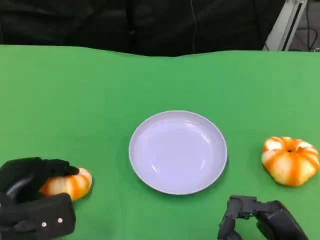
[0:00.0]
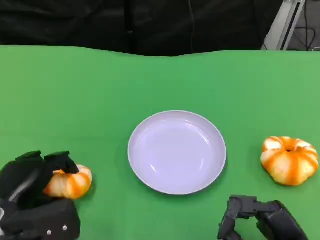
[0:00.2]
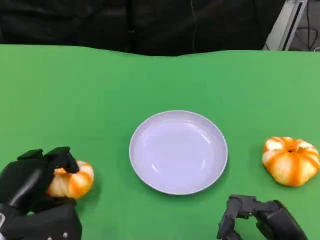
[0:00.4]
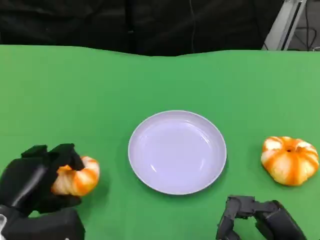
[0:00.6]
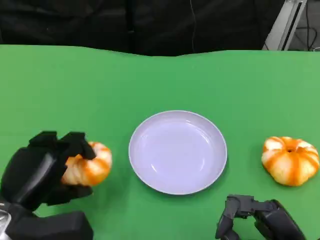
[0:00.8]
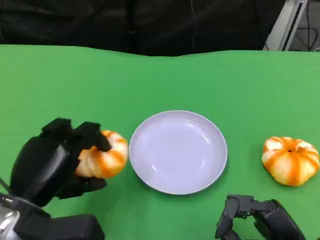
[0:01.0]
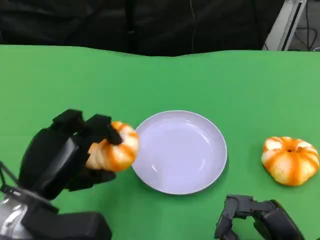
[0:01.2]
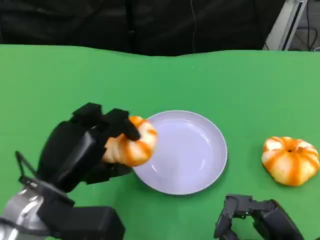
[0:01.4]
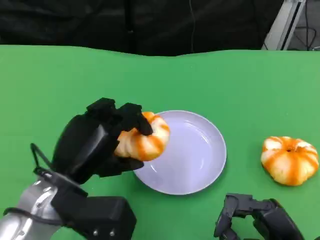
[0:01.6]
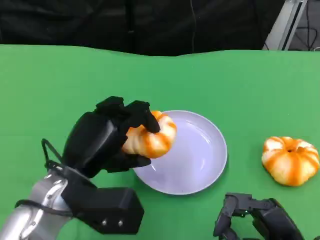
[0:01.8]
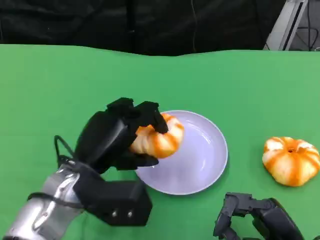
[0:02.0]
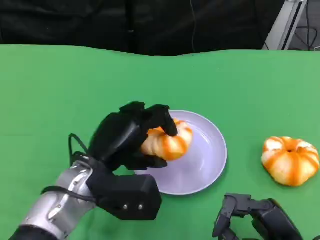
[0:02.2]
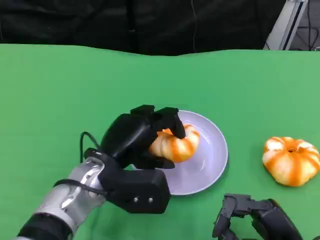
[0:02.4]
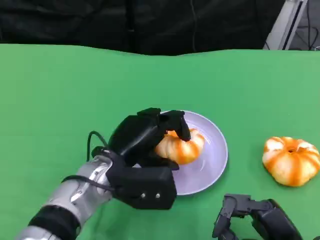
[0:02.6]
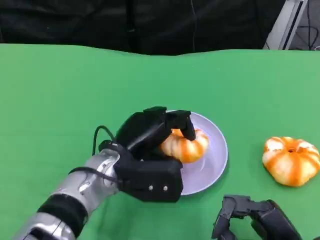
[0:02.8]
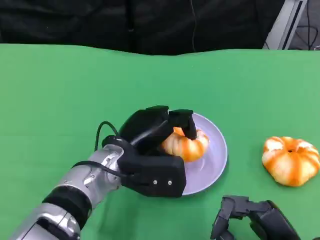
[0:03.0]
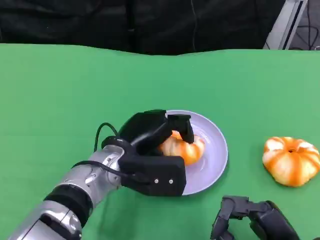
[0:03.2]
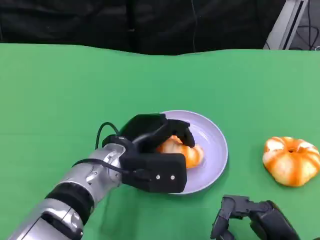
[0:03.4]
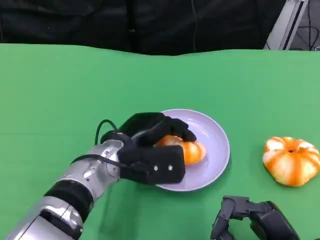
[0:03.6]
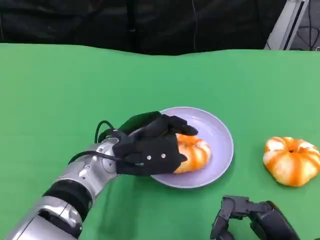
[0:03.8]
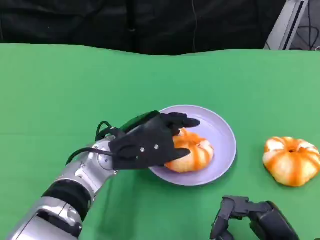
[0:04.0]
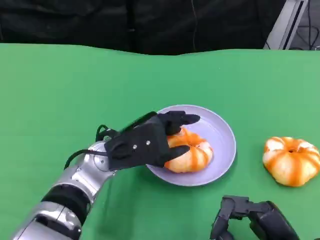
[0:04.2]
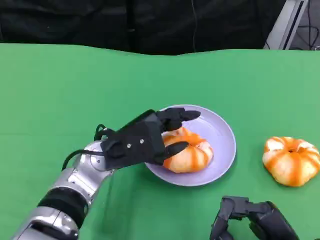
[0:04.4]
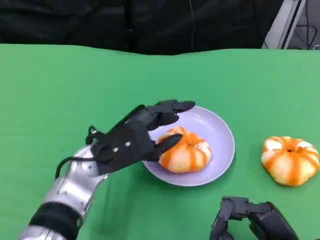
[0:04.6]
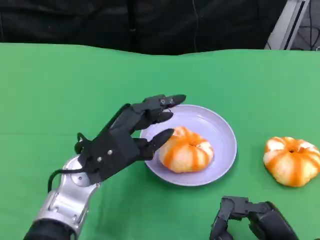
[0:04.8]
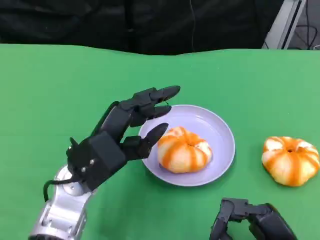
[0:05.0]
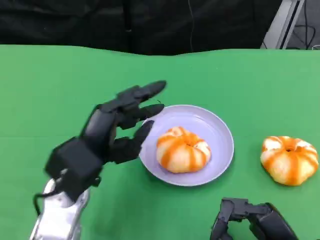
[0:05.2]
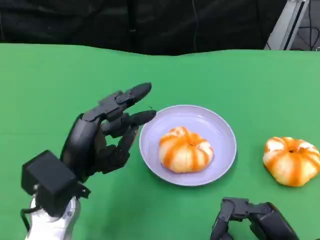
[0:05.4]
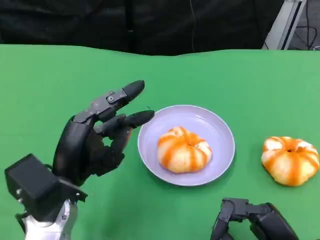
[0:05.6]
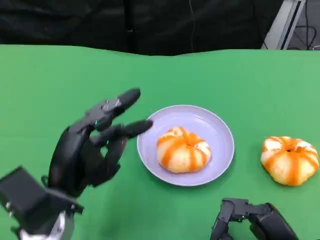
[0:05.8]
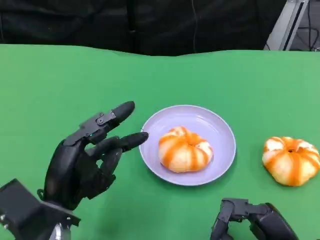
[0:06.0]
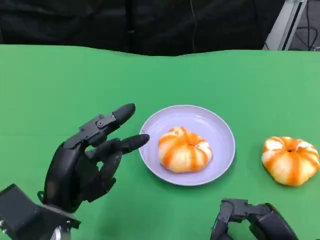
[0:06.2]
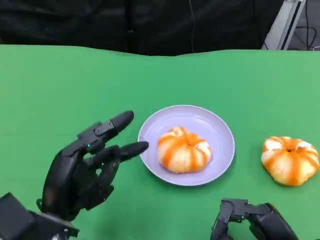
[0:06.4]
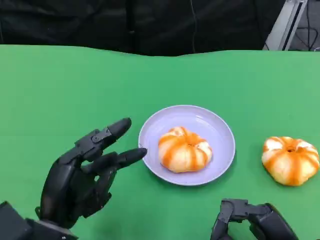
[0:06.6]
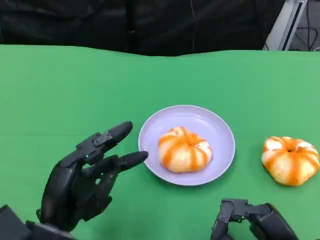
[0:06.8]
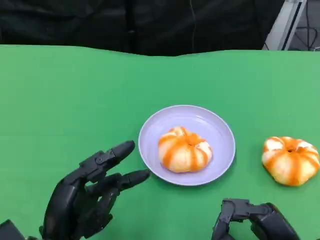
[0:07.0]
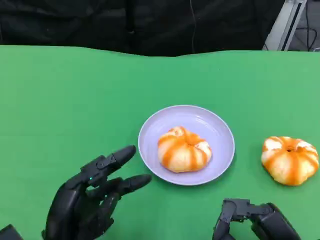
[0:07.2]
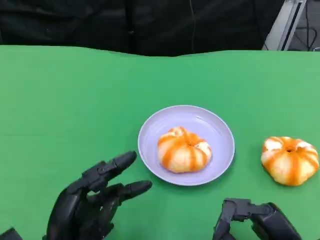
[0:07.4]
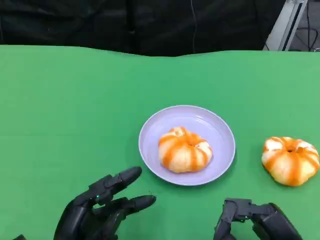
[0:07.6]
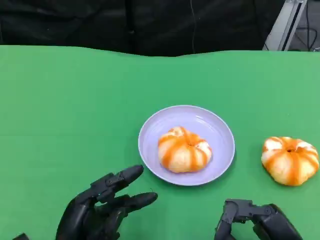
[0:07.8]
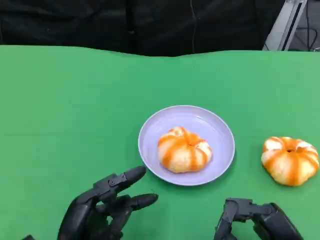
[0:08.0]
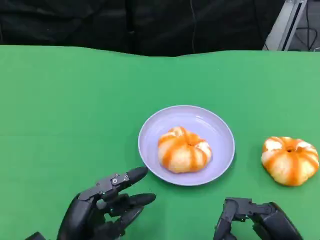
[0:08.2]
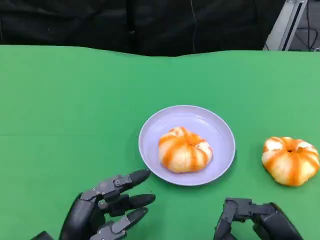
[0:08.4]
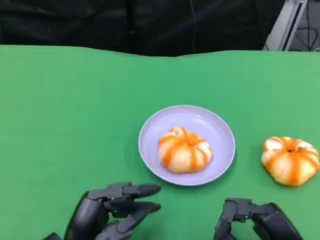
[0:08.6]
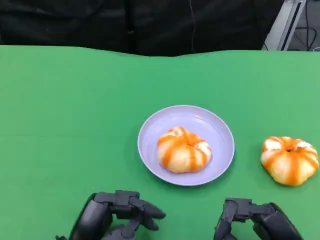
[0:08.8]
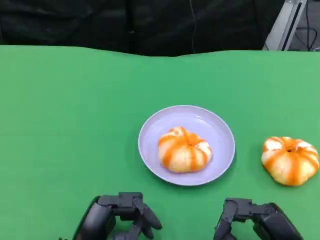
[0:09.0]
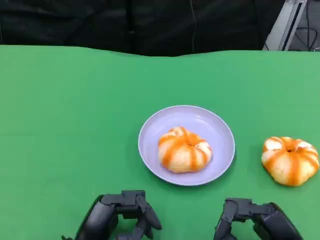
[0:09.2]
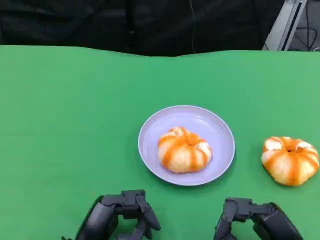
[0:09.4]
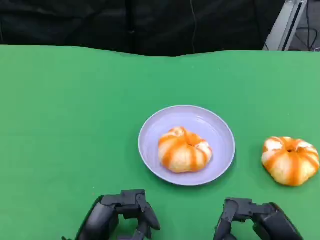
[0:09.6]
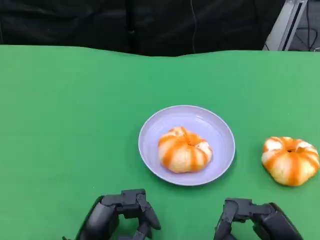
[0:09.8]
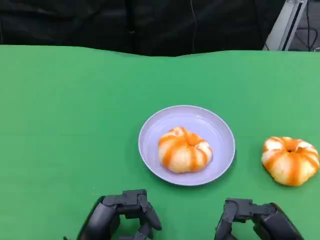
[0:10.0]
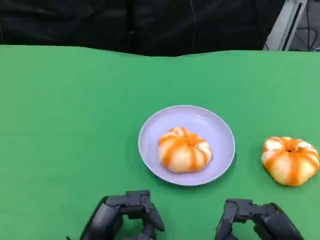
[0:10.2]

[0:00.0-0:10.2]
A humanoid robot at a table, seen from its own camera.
Task of the whole recording: Grasp the bread from the table and place it into the plate.
0:00.0 to 0:01.4: The left hand goes some 10 cm to the right and upward.
0:01.4 to 0:03.0: The left hand moves to the right and forward, approximately 10 cm.
0:04.4 to 0:05.8: The left hand shifts approximately 10 cm backward and to the left.
0:05.8 to 0:07.2: The left hand moves roughly 5 cm.
0:07.2 to 0:08.8: There are only small adjustments of the hands.
0:08.8 to 0:10.2: Both hands stay about where they are.
